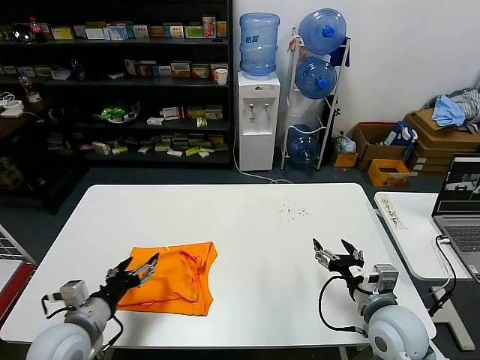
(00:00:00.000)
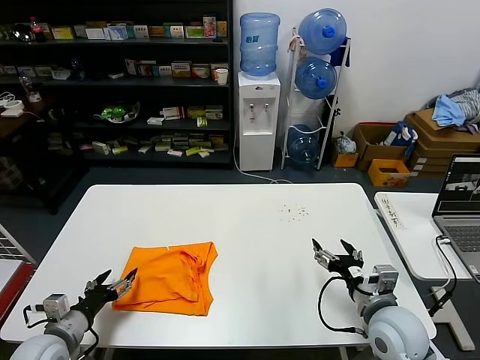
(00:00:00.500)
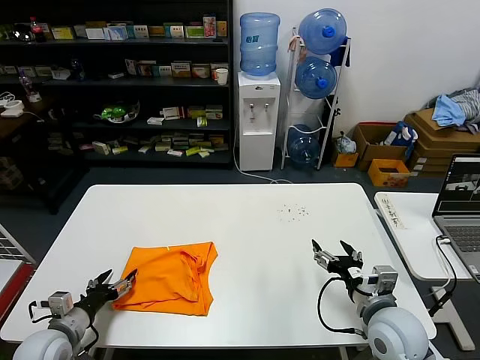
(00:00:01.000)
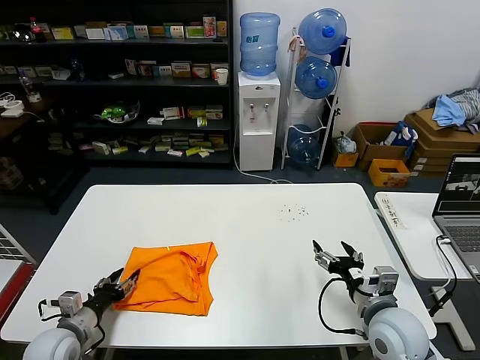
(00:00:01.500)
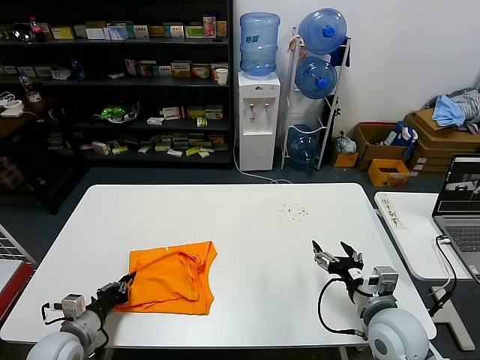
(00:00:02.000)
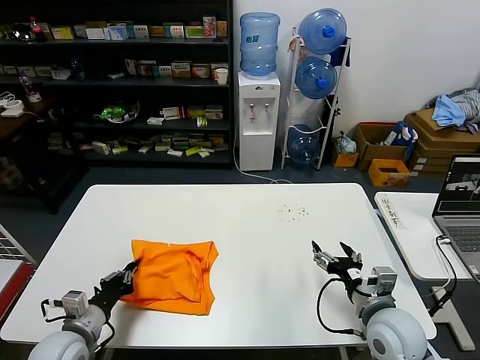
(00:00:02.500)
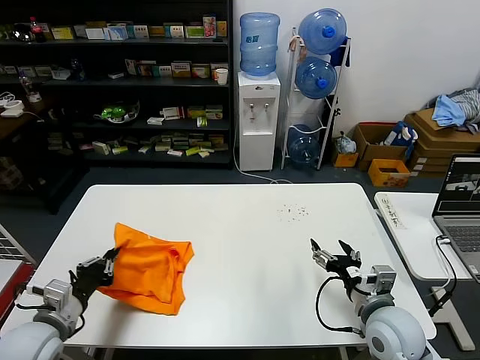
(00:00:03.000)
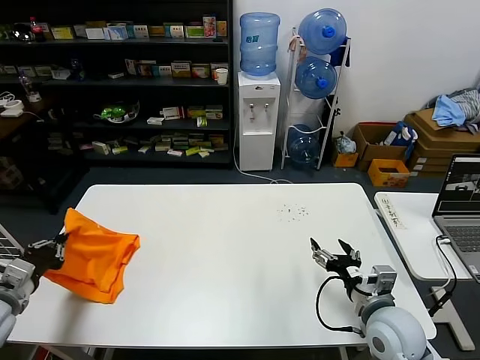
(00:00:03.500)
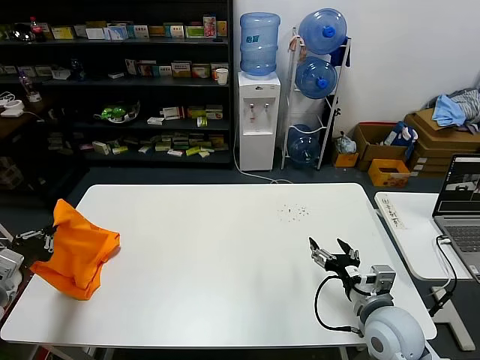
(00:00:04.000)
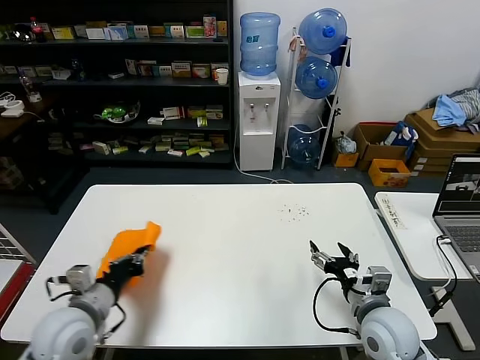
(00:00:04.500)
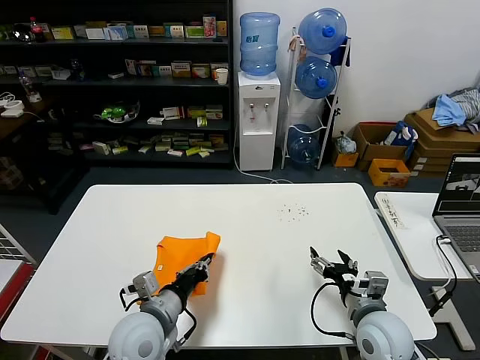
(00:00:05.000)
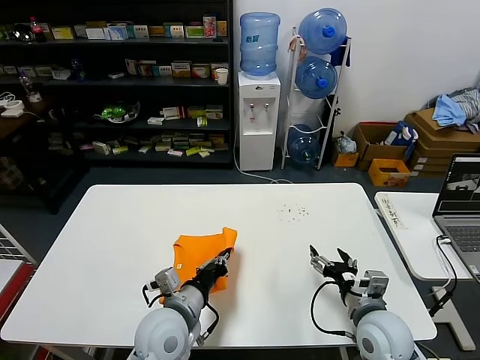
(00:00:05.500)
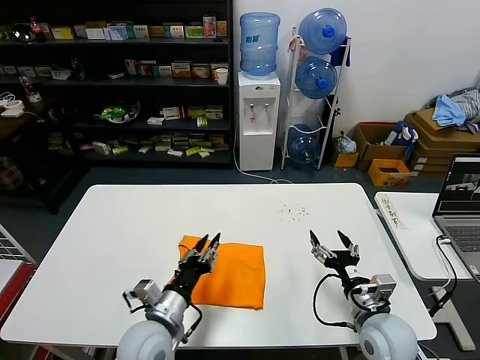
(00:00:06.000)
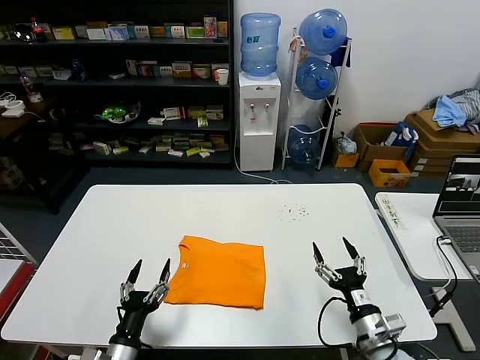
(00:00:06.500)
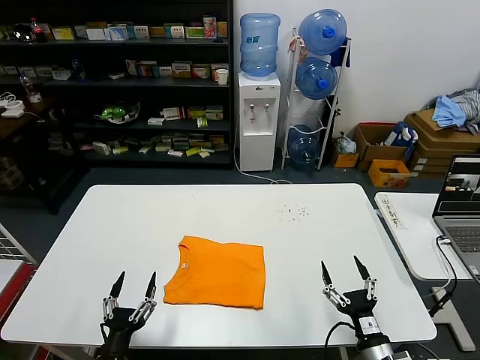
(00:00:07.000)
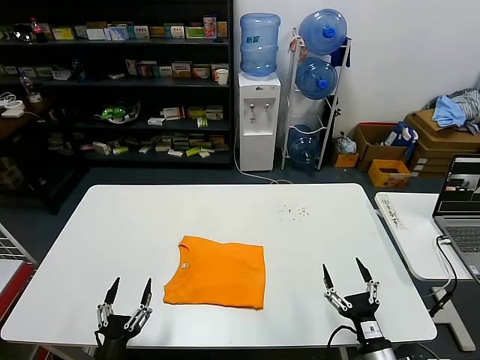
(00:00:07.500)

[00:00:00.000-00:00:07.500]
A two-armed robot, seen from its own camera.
Task of the whole recording: fold and organize the clothes.
Step, 00:00:00.000 to 00:00:05.500: Flip the folded clothes over with left gripper.
00:00:00.000 to 00:00:02.000: The left gripper is displaced downward and to the left by about 15 cm, and closes up.
00:00:02.000 to 00:00:04.000: The left gripper shifts about 20 cm upward and to the left.
00:00:04.000 to 00:00:05.500: The left gripper heads to the right, covering approximately 35 cm.
00:00:05.500 to 00:00:07.500: The left gripper shifts approximately 25 cm backward, downward and to the left, and opens, while the right gripper is displaced backward and downward by roughly 15 cm.
